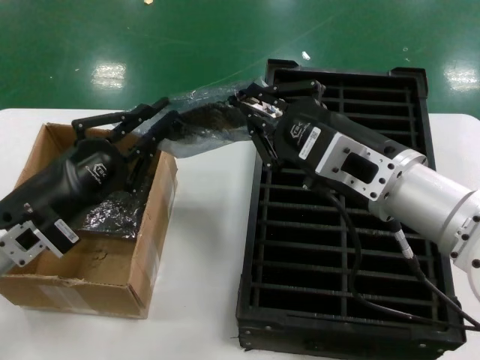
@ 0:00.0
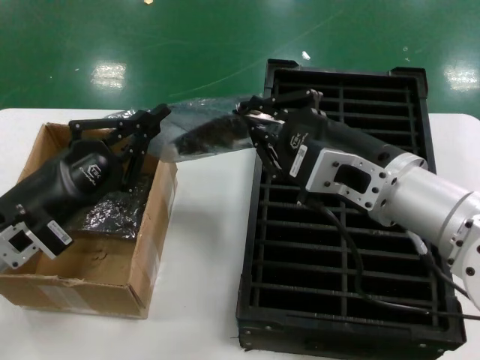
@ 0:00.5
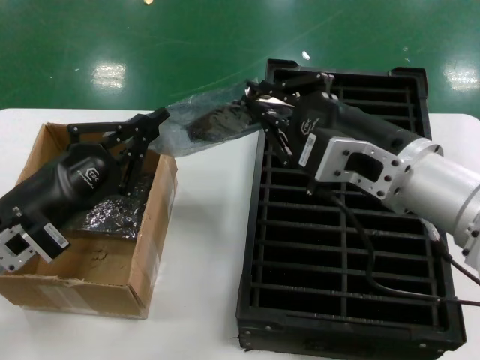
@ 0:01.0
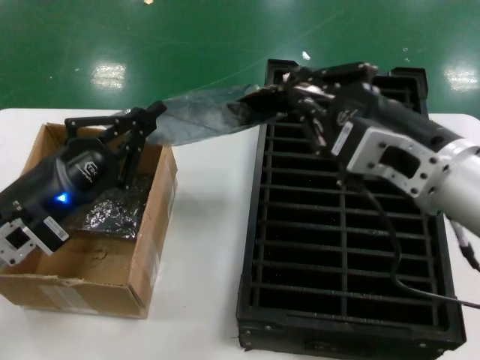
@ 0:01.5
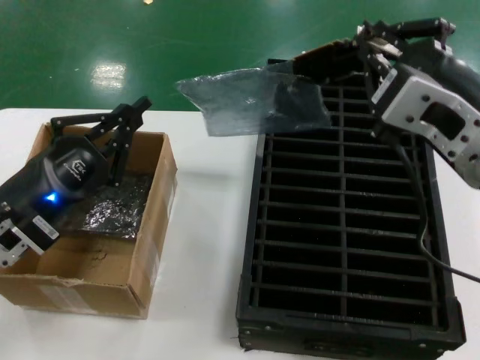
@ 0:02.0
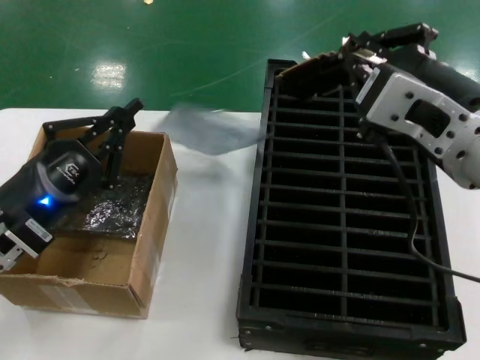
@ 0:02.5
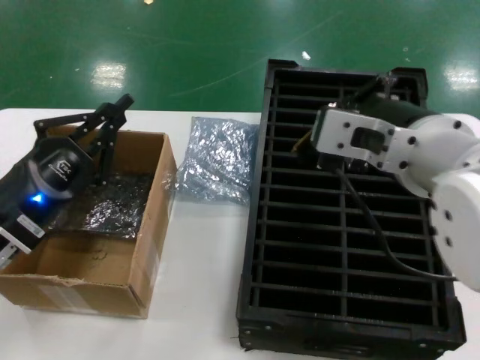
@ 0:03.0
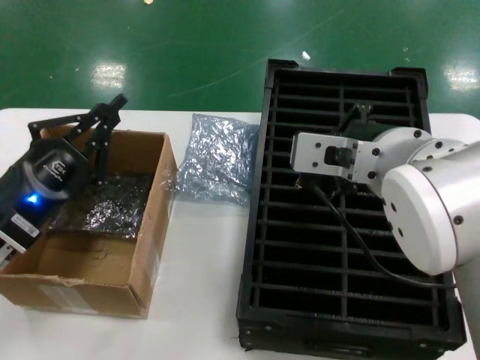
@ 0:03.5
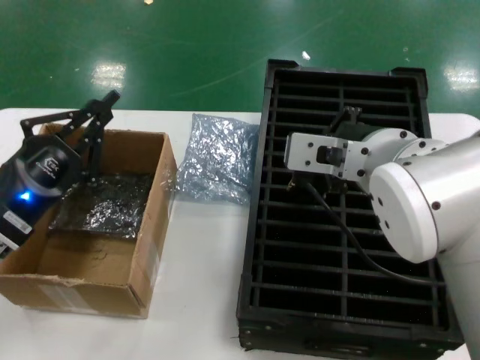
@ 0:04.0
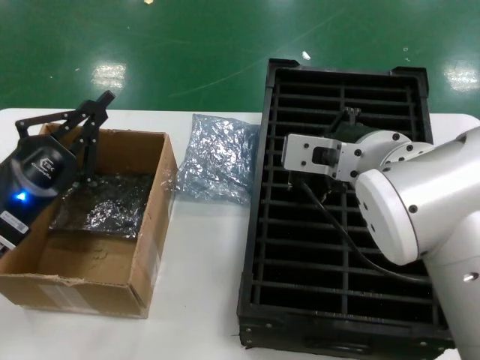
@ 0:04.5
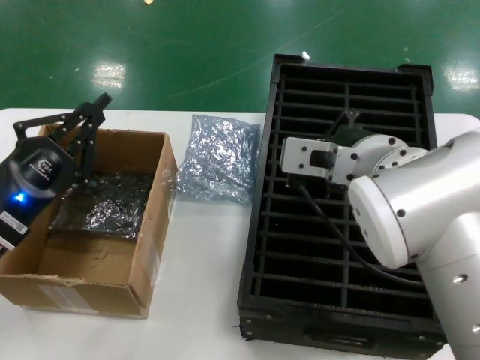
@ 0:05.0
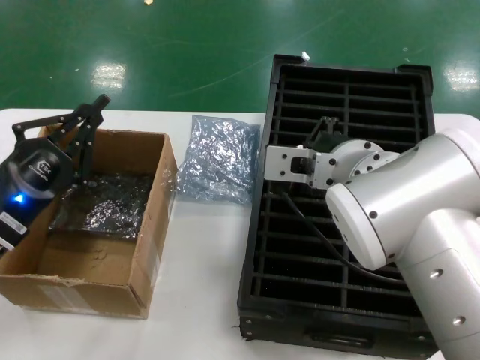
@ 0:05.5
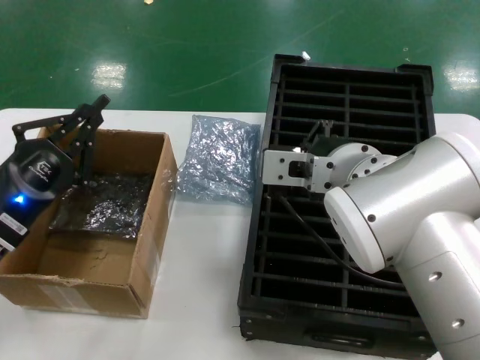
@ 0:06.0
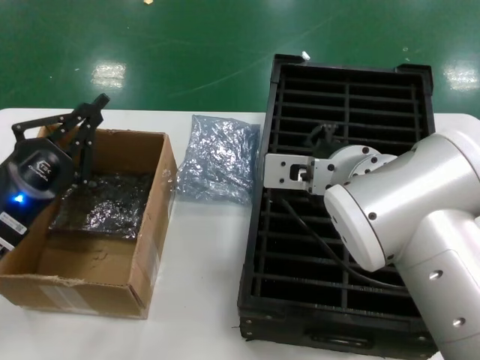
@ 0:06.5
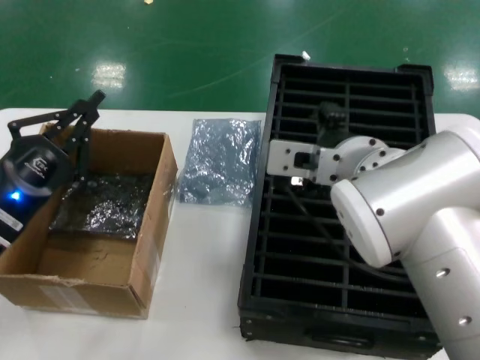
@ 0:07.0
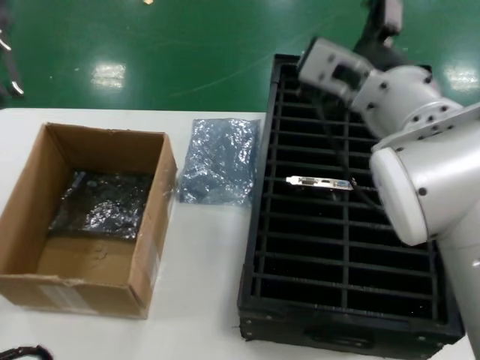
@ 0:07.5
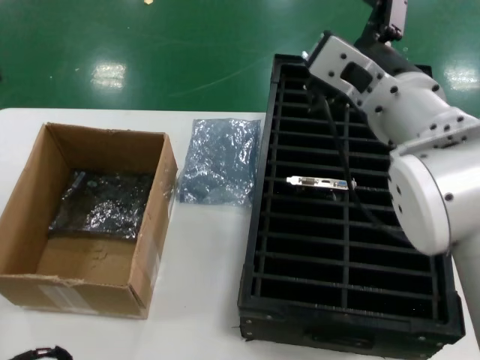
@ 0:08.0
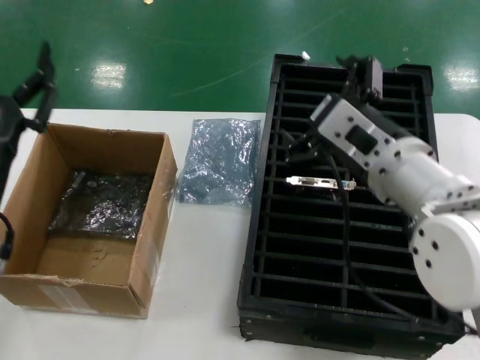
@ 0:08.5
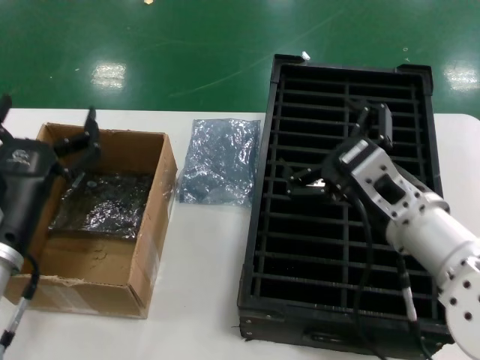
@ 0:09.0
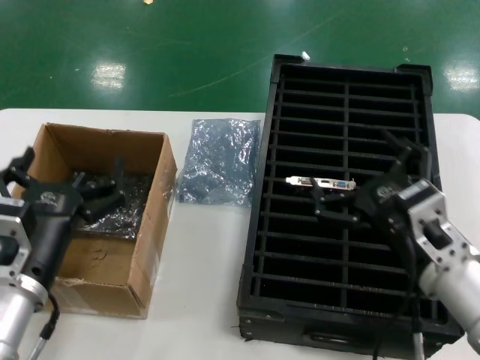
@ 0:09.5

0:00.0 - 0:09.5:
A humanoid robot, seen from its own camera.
Task of the whole recording: take out graphics card from box remove packaging put into black container.
Step, 0:00.0 - 0:02.0: Take out the hard disk of the bag.
Step, 0:03.0 - 0:07.0: Place the hard disk in the hard disk enclosure.
0:00.0 - 0:02.0: The right hand heads upward and backward, covering approximately 10 cm.
0:02.0 - 0:04.0: The right hand is displaced to the left and forward by approximately 10 cm.
0:05.5 - 0:07.5: Both hands move upward, roughly 5 cm.
0:07.5 - 0:09.5: The right hand shifts about 20 cm downward and to the right, while the left hand moves to the right and downward, some 10 cm.

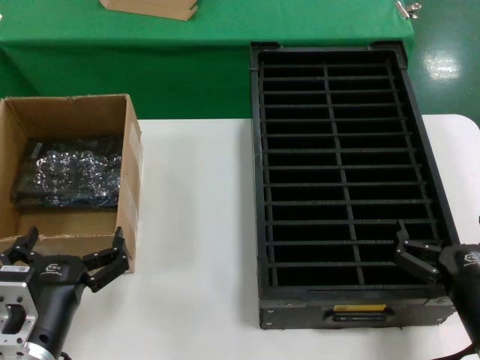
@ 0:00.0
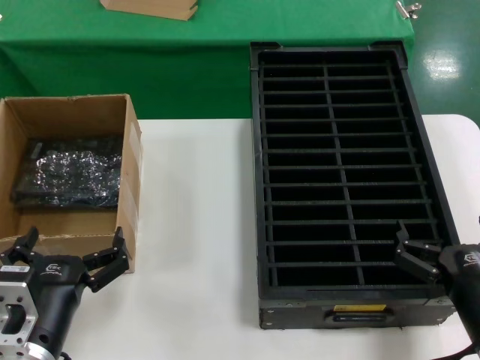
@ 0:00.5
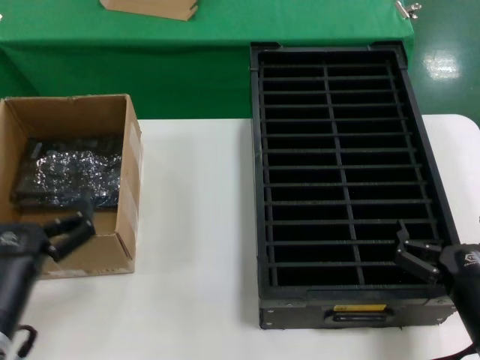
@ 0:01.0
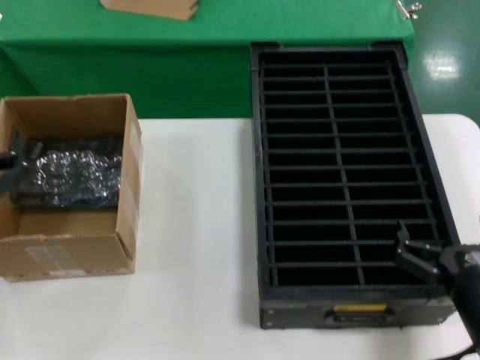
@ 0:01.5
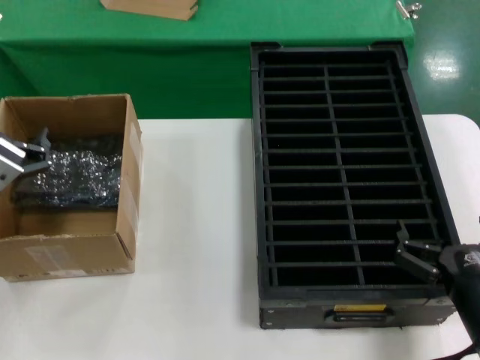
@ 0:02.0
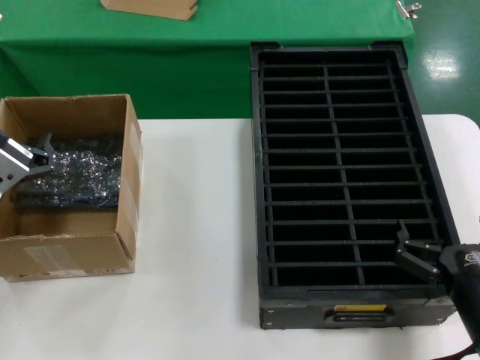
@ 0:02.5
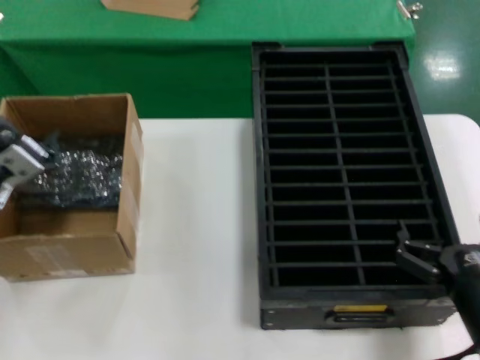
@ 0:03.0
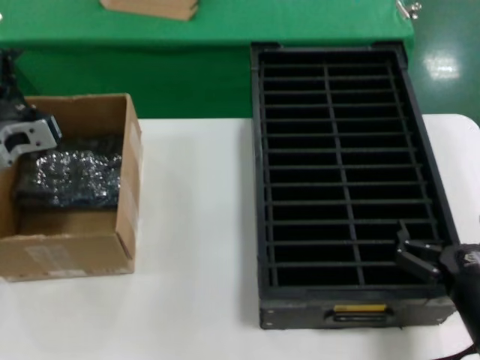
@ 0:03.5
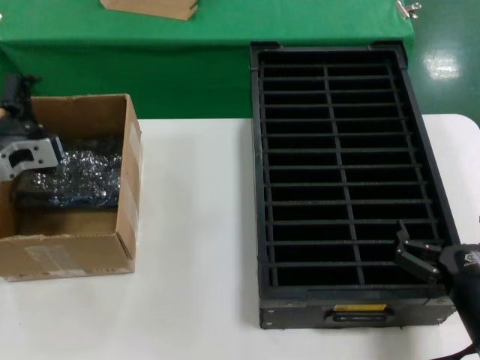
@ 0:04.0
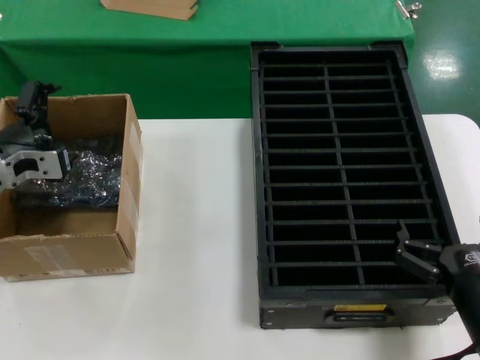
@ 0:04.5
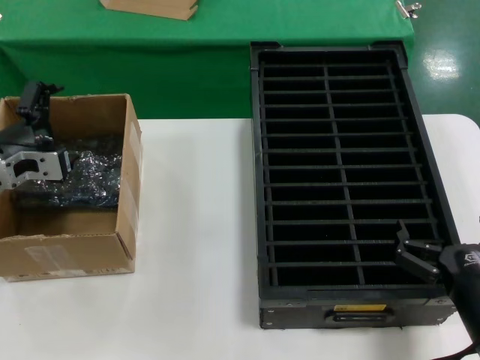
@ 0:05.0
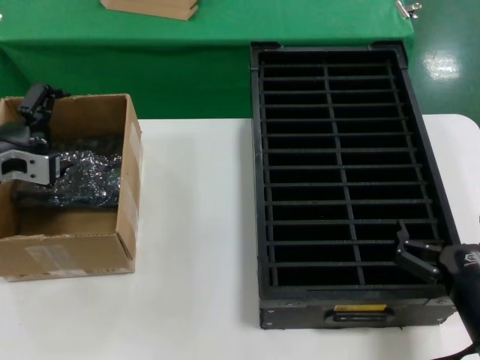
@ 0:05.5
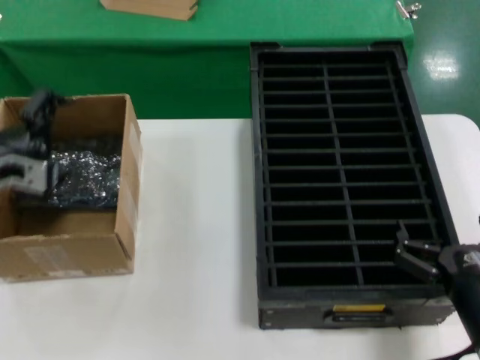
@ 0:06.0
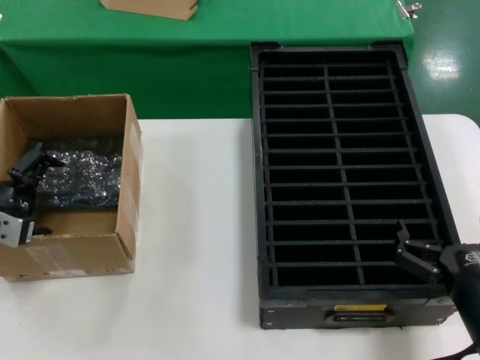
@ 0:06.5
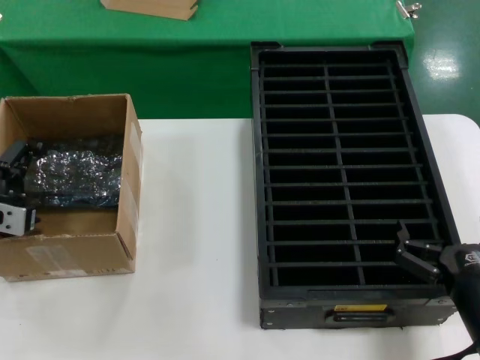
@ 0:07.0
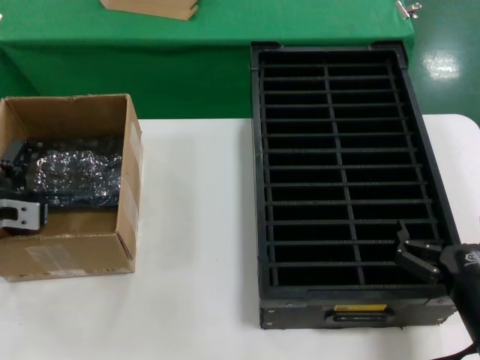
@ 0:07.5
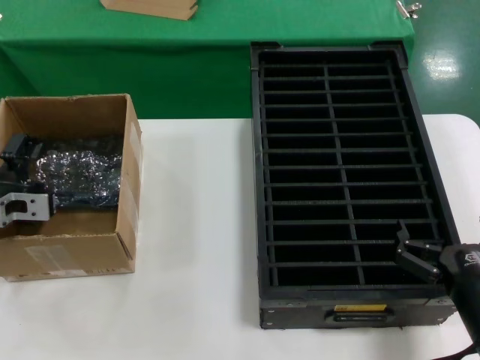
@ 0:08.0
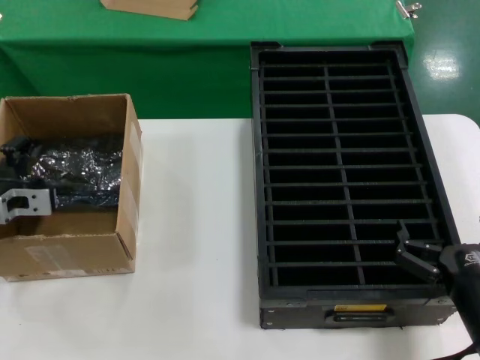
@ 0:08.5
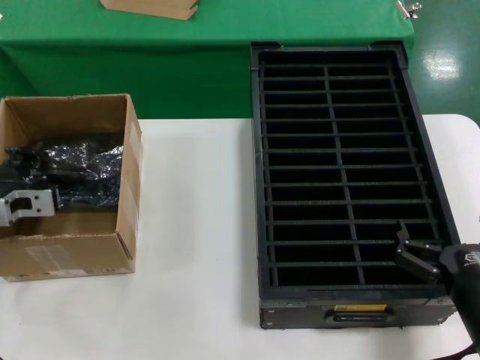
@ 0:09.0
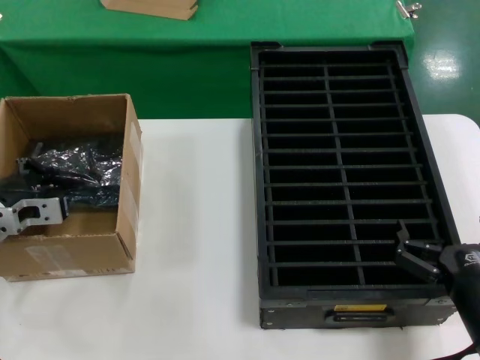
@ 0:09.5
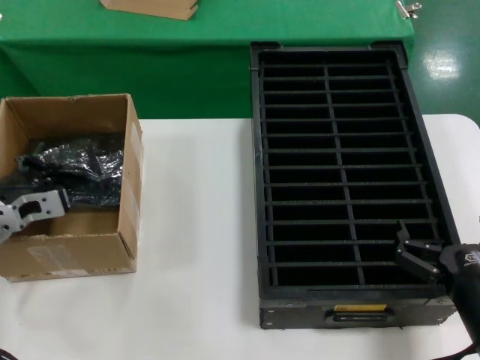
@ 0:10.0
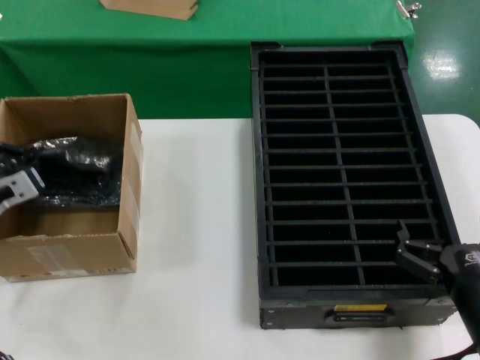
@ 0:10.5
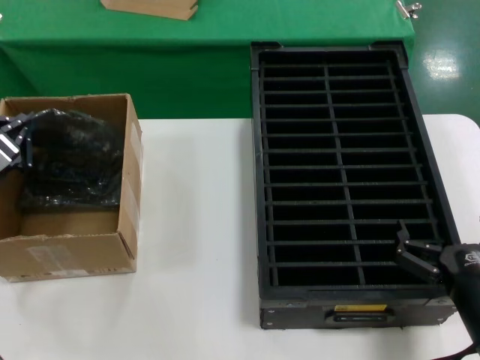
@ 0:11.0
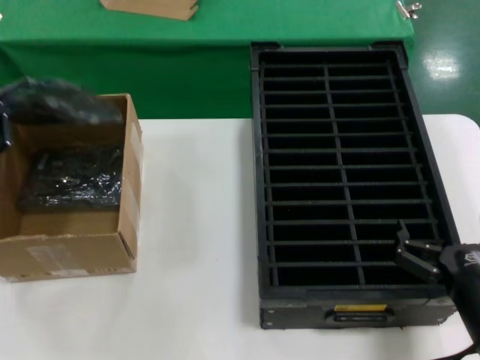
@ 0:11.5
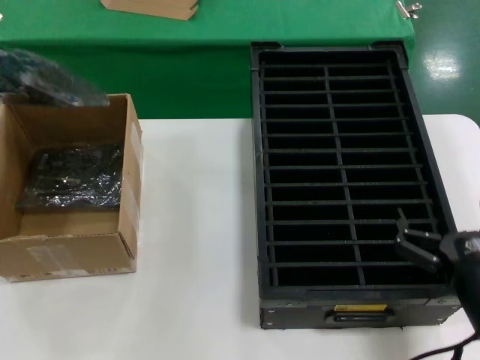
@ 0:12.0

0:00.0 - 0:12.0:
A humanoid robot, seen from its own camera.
Task of the whole recording: take out graphics card from box remove packaging put into black container.
Step, 0:00.0 - 0:09.5: Grasp the bag.
Step, 0:10.5 - 0:11.5: Lift the bag.
0:00.0 - 0:02.0: The left hand heads upward, forward and to the left, covering approximately 15 cm.
0:02.0 - 0:04.0: The left hand is displaced forward and to the left by roughly 15 cm.
0:06.0 - 0:08.0: The left hand heads downward, covering roughly 5 cm.
0:08.0 - 0:10.0: The hands make only small movements.
0:10.0 - 0:12.0: The left hand travels backward and upward by roughly 15 cm.

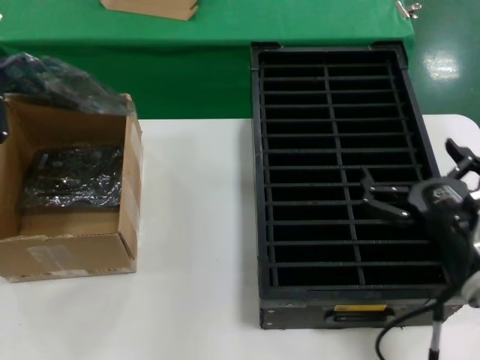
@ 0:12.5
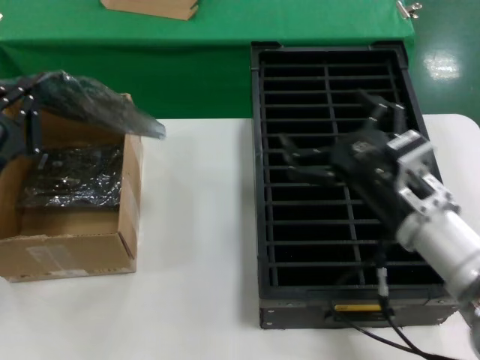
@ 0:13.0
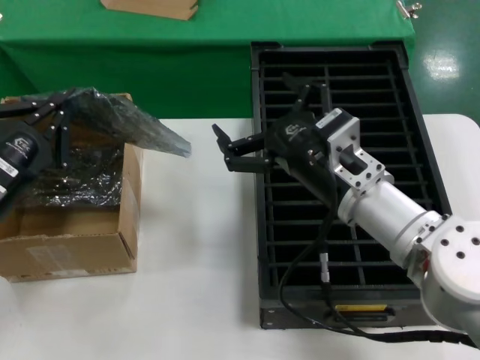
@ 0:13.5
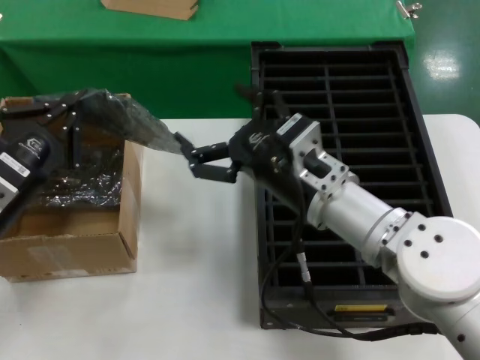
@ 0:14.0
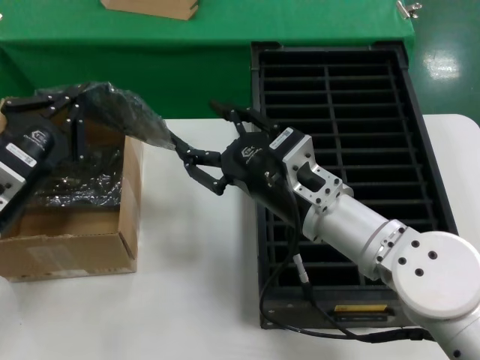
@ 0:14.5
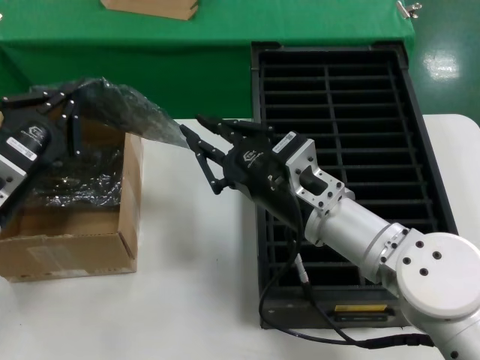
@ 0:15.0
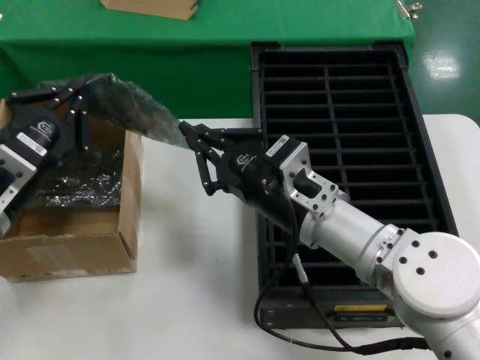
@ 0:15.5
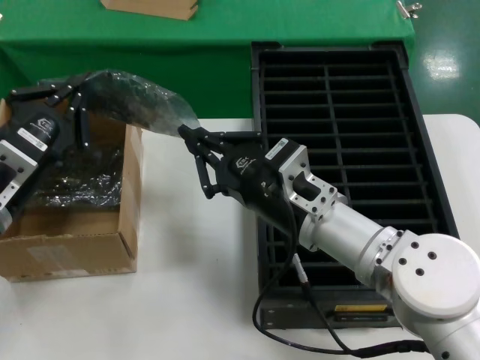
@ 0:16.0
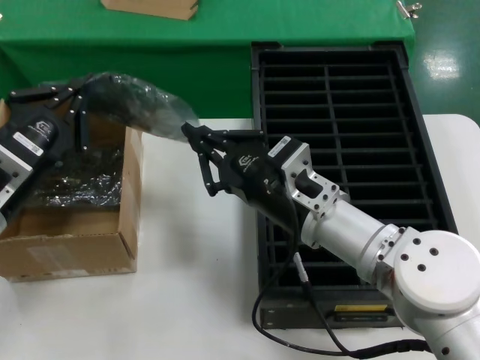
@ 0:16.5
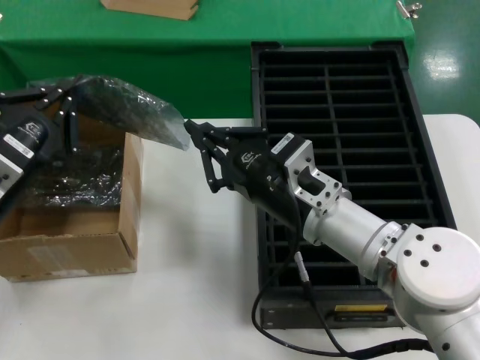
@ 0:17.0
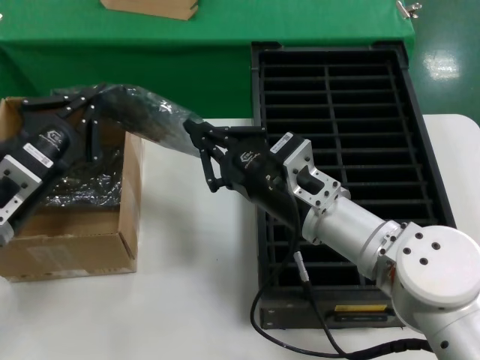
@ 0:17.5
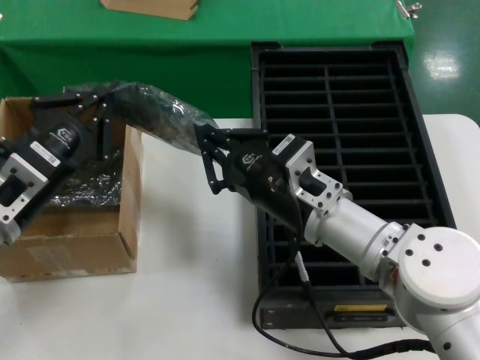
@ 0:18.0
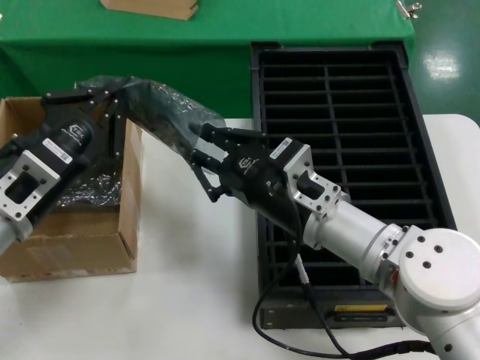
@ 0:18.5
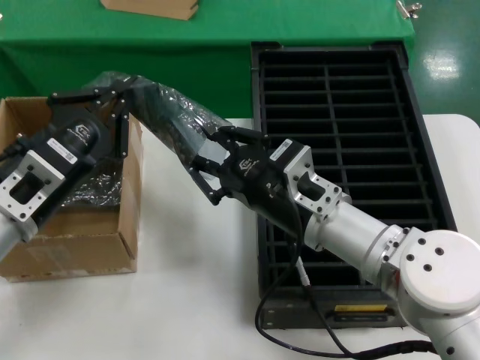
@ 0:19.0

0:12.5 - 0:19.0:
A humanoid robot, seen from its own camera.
Task of the whole recording: take out graphics card from box remove packaging put into black container.
0:12.5 - 0:14.5: The right hand is displaced to the left and forward by some 15 cm; the left hand is displaced to the right by about 5 cm.
0:14.5 - 0:19.0: The hands move only a little.
